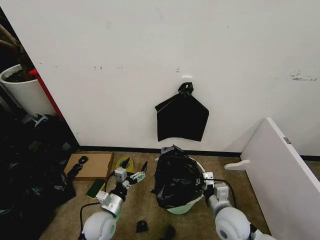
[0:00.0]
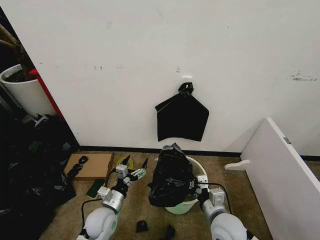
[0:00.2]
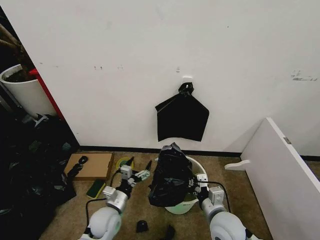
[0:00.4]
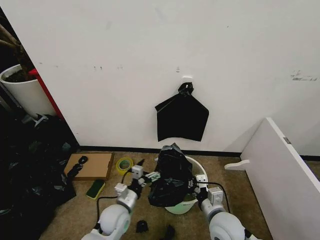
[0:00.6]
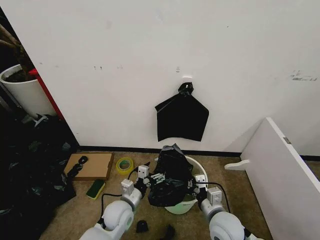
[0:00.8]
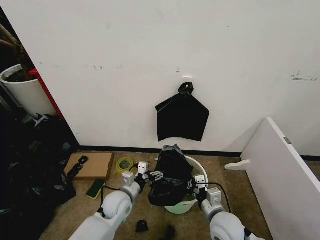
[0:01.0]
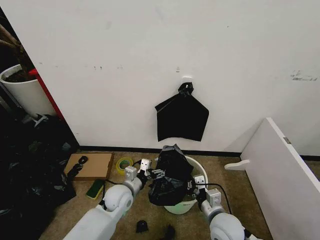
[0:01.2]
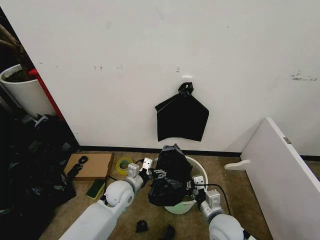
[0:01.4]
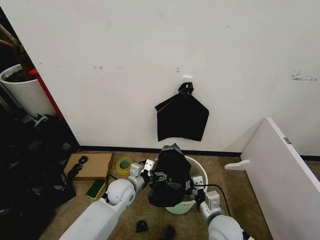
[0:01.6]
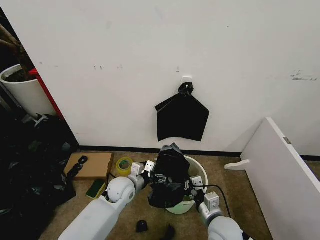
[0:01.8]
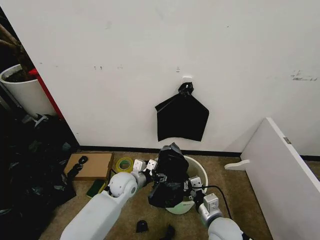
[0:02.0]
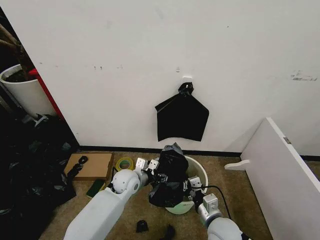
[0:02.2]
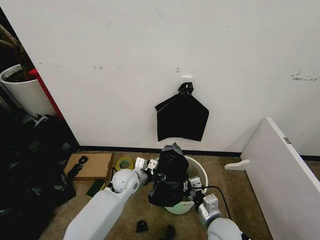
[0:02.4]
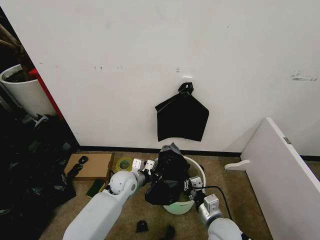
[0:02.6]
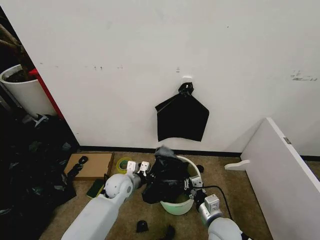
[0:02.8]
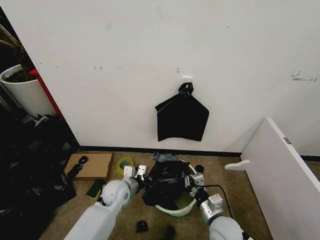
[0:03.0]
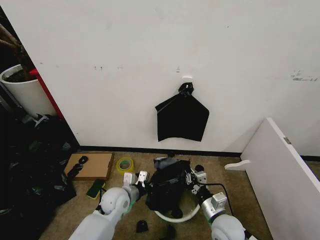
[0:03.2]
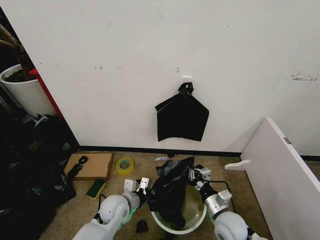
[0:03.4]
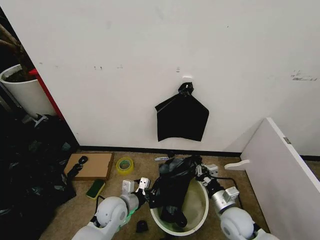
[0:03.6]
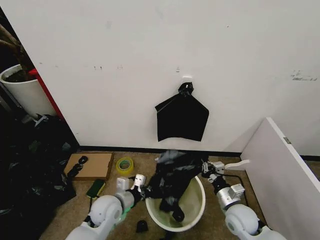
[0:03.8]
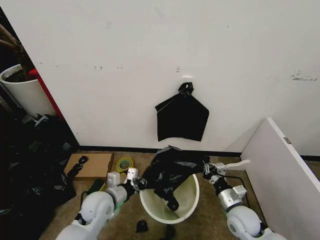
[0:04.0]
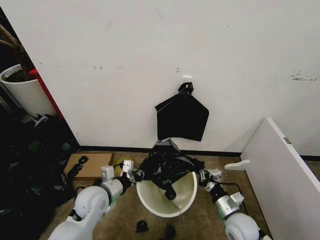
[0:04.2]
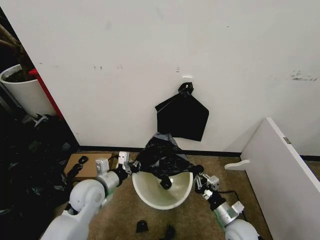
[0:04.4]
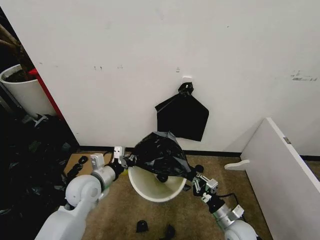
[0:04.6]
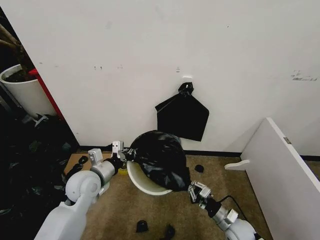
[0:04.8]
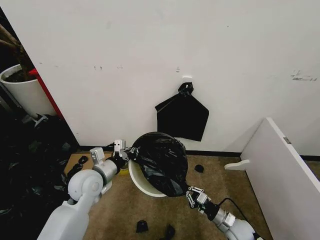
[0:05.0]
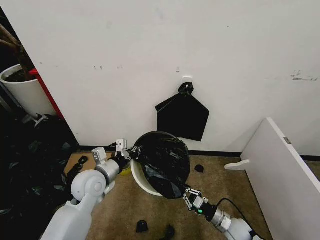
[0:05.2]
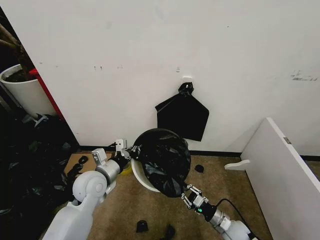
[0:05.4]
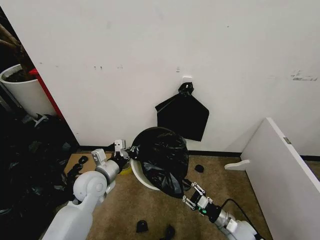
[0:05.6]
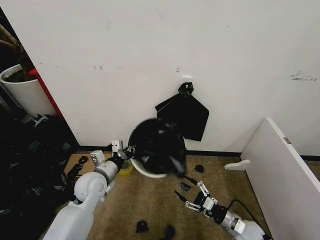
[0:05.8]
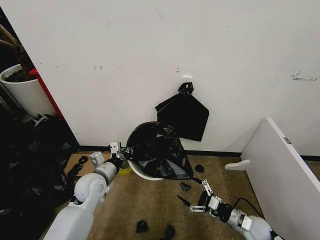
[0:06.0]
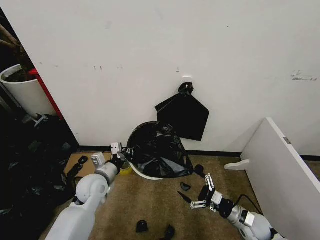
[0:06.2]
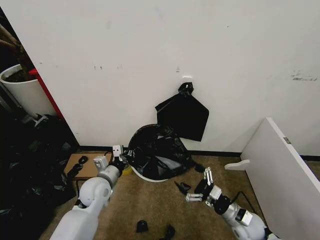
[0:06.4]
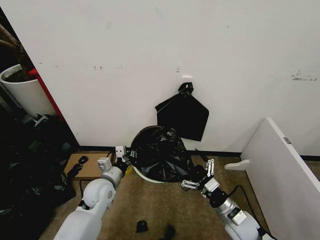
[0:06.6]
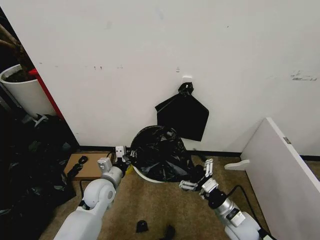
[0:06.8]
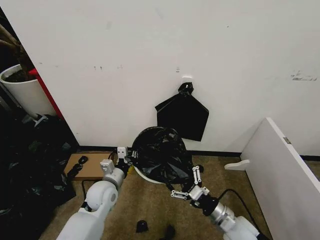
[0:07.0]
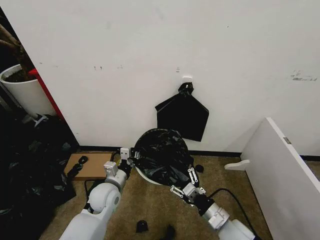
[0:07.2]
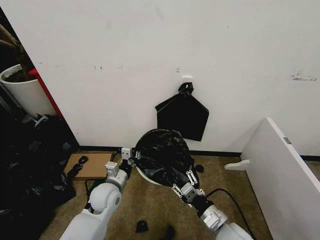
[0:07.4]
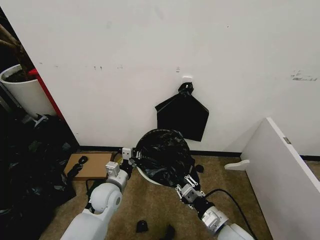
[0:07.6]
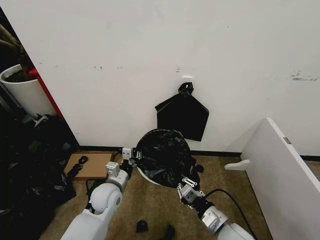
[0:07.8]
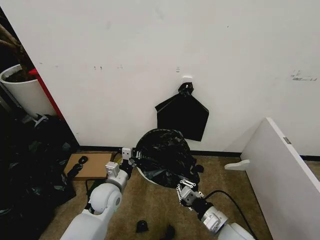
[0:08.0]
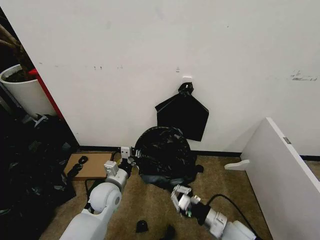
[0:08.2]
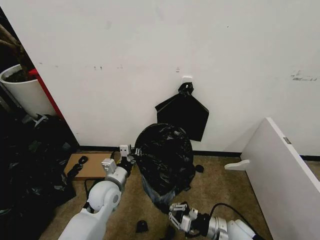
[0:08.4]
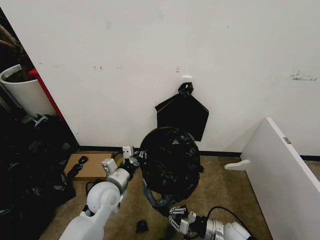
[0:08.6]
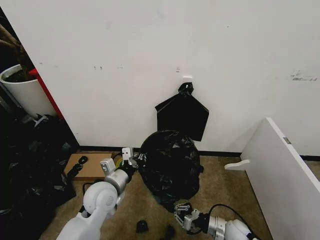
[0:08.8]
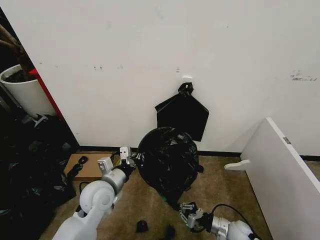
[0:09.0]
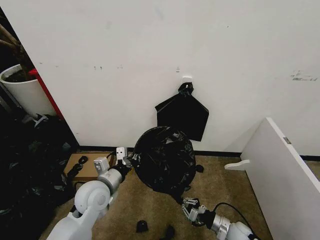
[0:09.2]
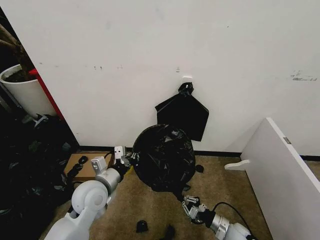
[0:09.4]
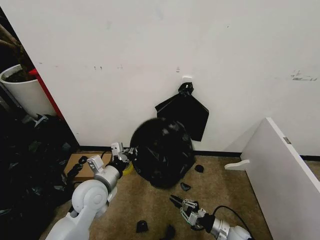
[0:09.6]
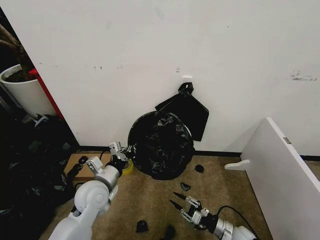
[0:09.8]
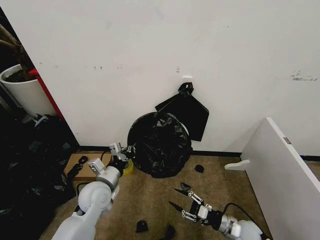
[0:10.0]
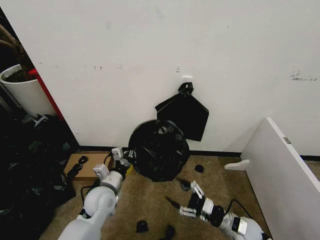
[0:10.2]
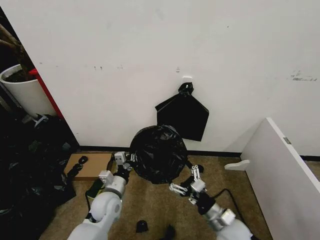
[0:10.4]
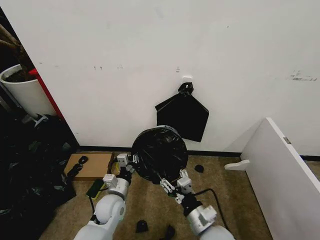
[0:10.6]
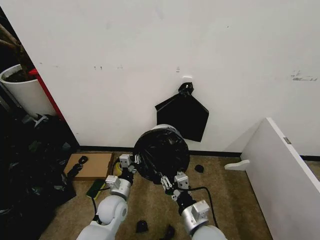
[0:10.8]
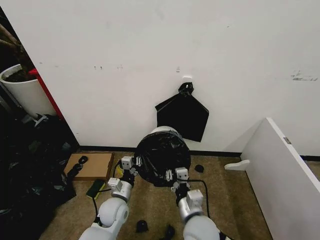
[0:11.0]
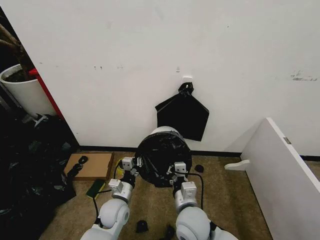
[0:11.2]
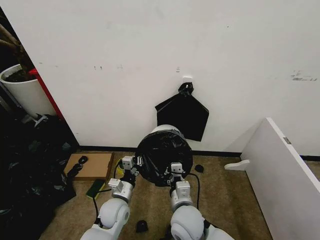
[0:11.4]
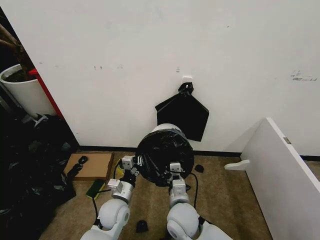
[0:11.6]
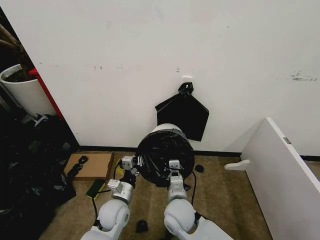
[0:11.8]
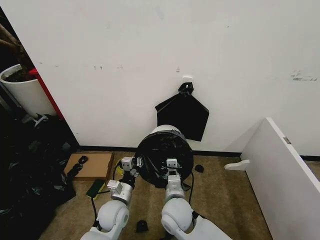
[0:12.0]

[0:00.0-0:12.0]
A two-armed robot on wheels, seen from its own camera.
Task of the whole recording: Place the garbage bag over the trash bin.
0:00.0 to 0:01.6: The left gripper travels forward and to the right by approximately 10 cm.
0:01.6 to 0:03.0: The left gripper closes its fingers.
0:03.0 to 0:04.4: The left gripper shifts approximately 10 cm upward and to the left. Meanwhile the right gripper heads to the right, covering some 5 cm.
0:04.4 to 0:06.0: The right gripper heads to the right, covering about 5 cm, and opens its fingers.
0:06.0 to 0:07.6: The right gripper heads to the left, upward and backward, covering about 20 cm, and closes its fingers; the left gripper ends up approximately 5 cm from where it was.
0:07.6 to 0:09.0: The left gripper heads upward, covering some 5 cm. The right gripper heads downward and to the right, covering roughly 20 cm.
0:09.0 to 0:10.4: The right gripper travels upward and to the left by roughly 15 cm, and opens its fingers. The left gripper moves downward, approximately 10 cm.
0:10.4 to 0:12.0: The right gripper heads to the left, covering approximately 20 cm, and closes.

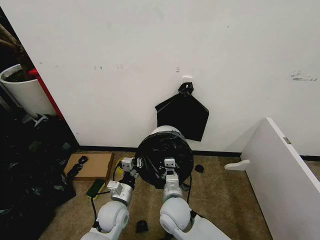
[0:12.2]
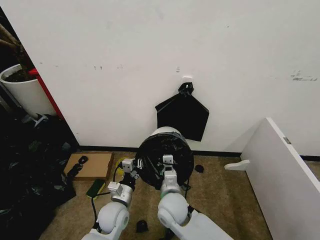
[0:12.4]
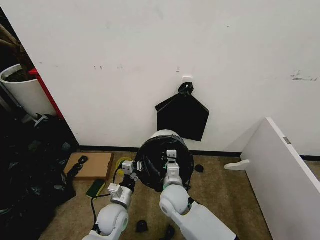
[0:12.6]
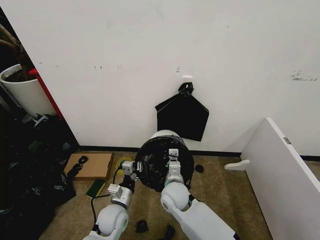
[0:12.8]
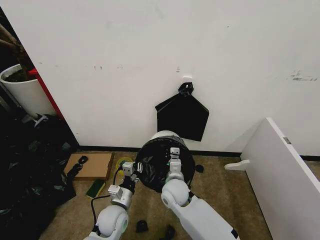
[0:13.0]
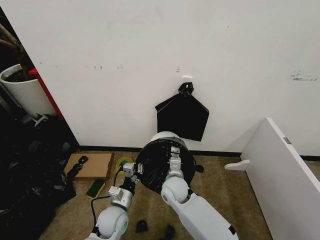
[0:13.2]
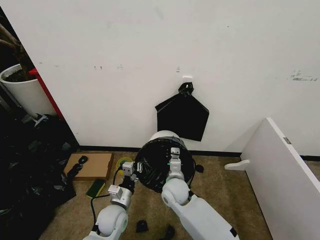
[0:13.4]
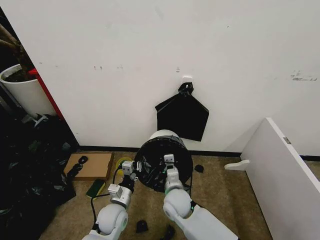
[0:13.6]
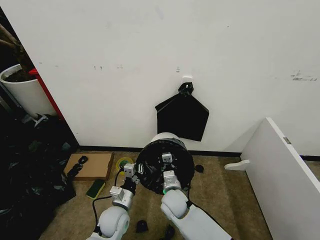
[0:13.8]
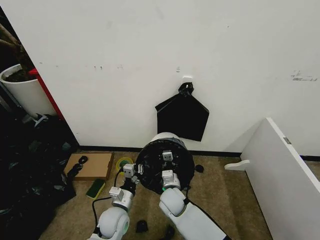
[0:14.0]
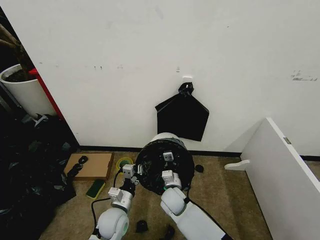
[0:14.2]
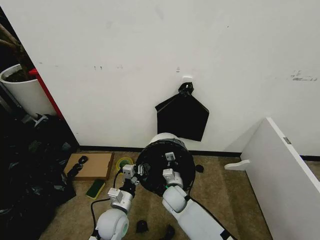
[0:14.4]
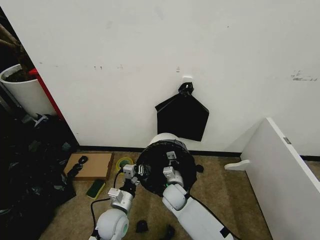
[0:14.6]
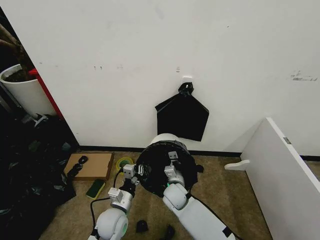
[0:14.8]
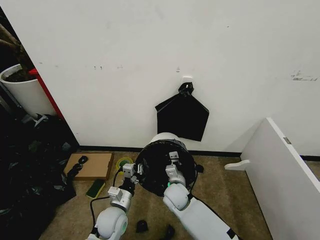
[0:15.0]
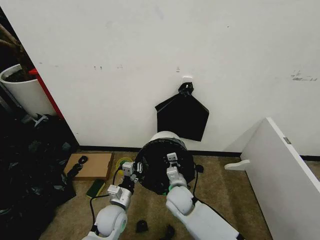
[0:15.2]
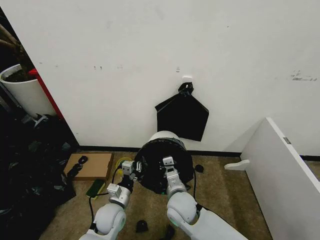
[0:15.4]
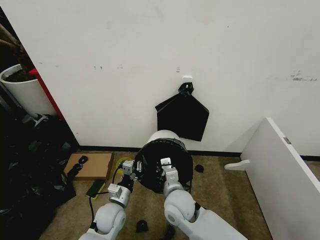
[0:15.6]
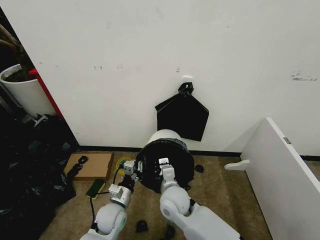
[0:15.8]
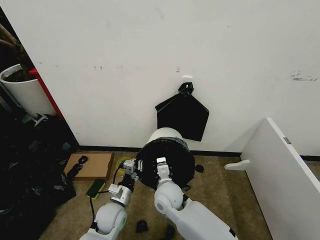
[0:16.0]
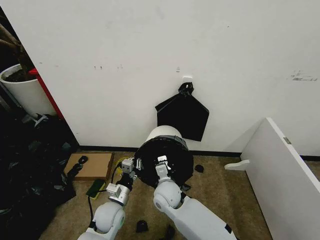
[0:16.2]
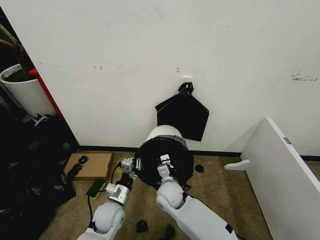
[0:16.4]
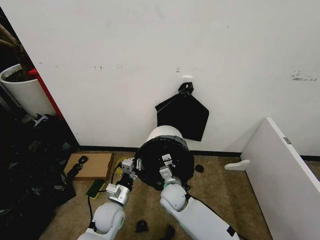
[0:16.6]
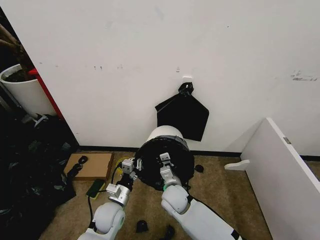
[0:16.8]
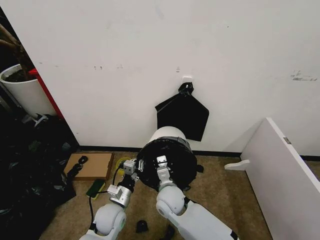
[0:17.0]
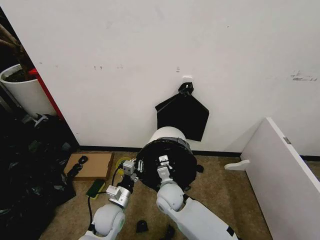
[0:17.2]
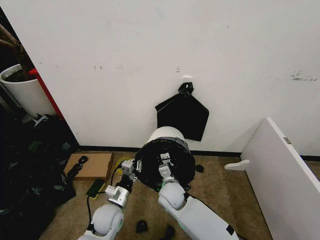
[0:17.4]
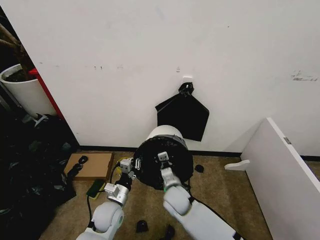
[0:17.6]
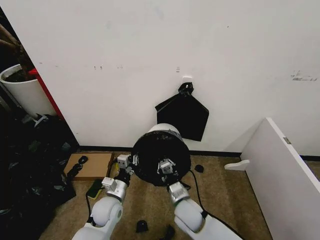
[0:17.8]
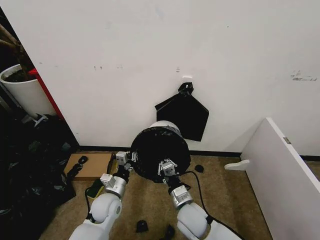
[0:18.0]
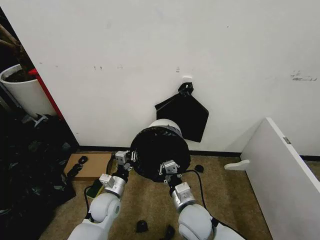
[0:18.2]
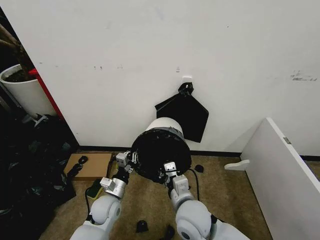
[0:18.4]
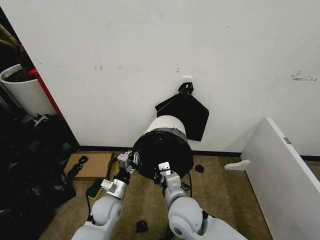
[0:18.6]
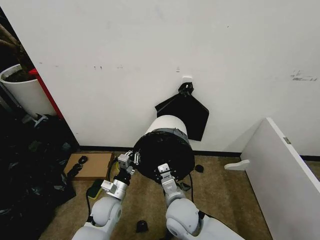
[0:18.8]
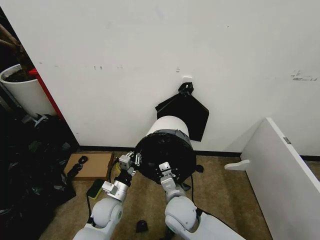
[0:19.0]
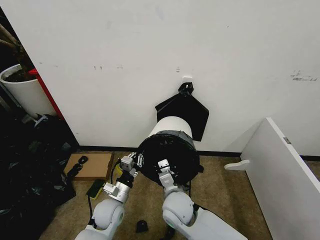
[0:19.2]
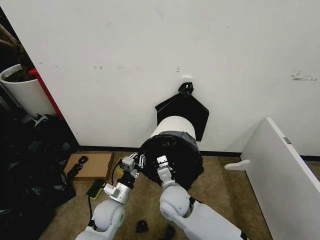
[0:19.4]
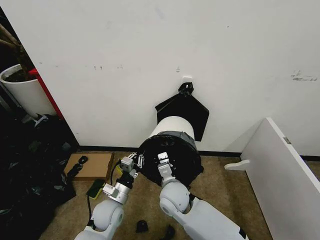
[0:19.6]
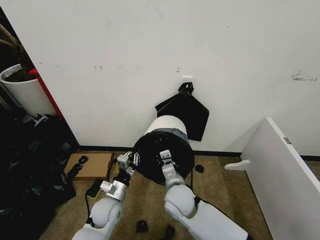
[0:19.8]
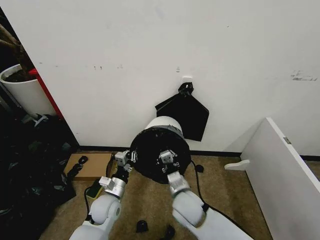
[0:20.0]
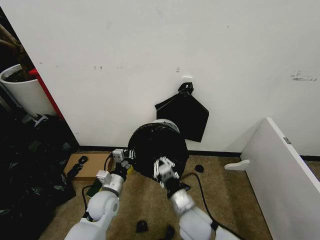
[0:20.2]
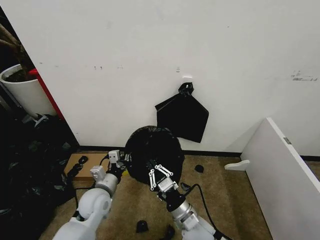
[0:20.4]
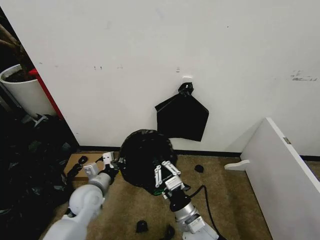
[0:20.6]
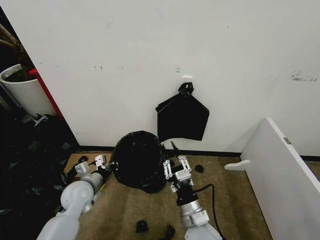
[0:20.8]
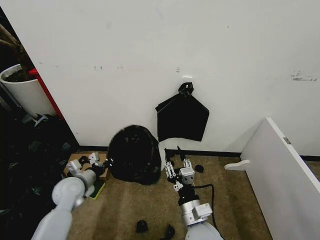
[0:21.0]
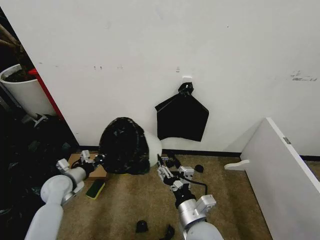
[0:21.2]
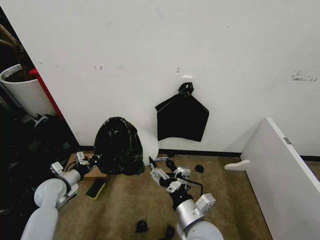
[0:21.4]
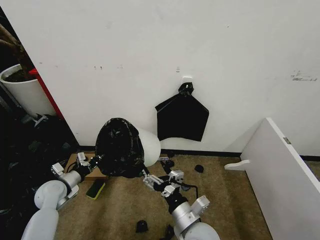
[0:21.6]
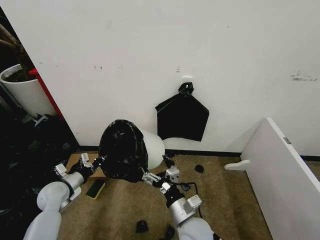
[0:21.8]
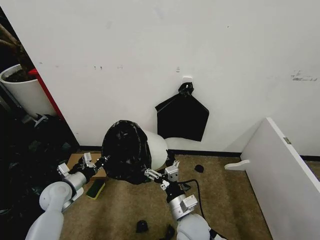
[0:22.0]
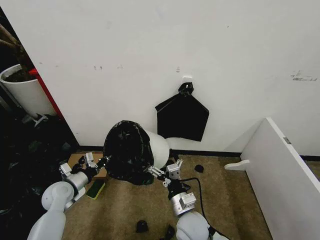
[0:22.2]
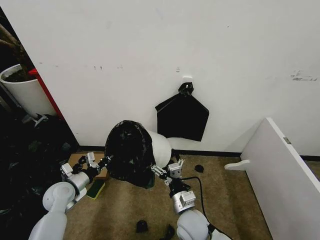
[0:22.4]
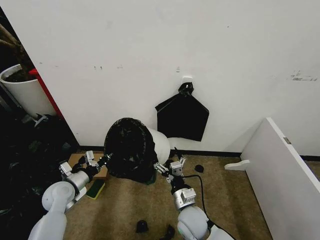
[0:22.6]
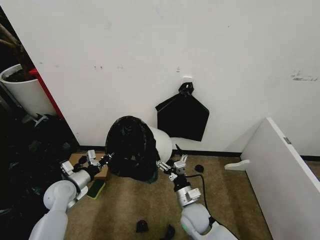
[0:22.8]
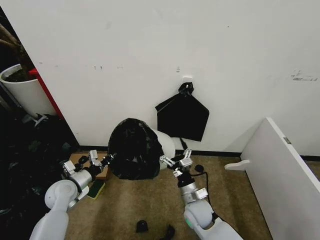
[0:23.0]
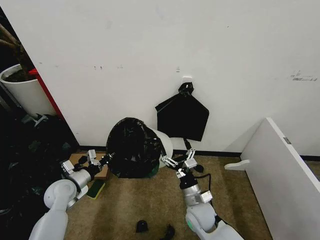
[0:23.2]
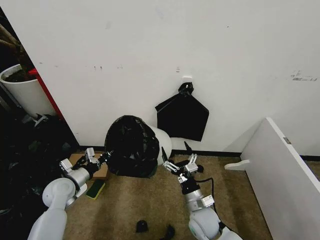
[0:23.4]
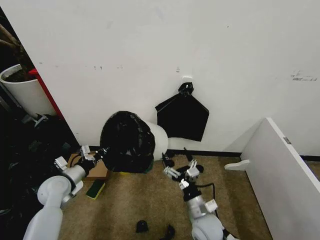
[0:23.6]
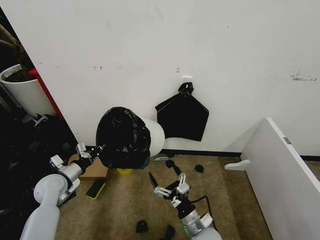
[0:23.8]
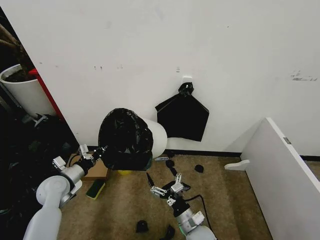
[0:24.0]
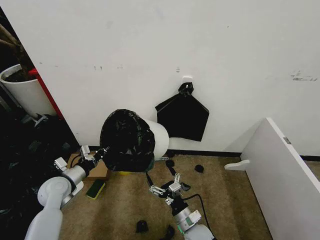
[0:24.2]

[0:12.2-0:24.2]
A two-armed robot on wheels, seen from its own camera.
Task of the whole recording: Place the garbage bag over the trash bin.
0:12.2 to 0:13.8: The right gripper heads downward, covering approximately 5 cm.
0:15.2 to 0:16.6: The right gripper travels upward and back again, roughly 5 cm each way.
0:16.6 to 0:18.2: The right gripper shifts about 15 cm backward and upward.
0:18.2 to 0:19.8: The right gripper is displaced forward by about 5 cm.
0:19.8 to 0:21.2: The right gripper travels backward by about 10 cm, and opens up, while the left gripper moves to the left, roughly 15 cm.
0:21.2 to 0:22.6: The right gripper heads downward and forward, covering about 10 cm.
0:22.6 to 0:24.2: The right gripper goes approximately 5 cm downward.
